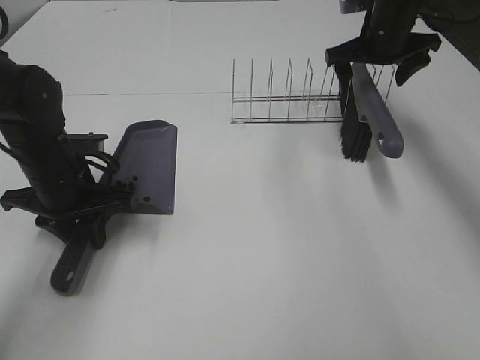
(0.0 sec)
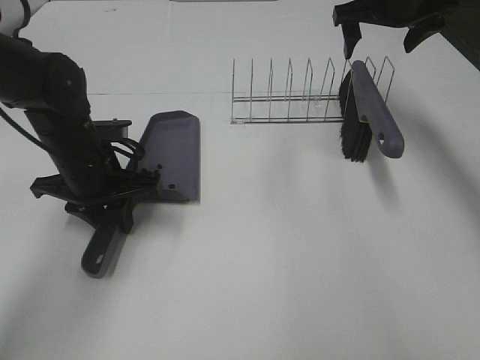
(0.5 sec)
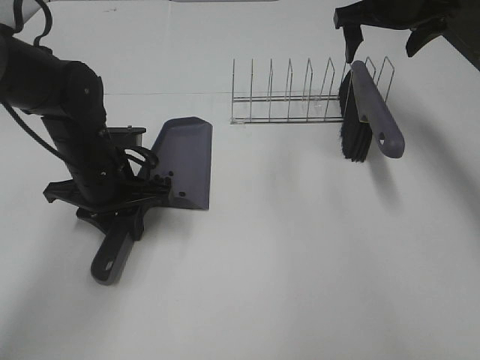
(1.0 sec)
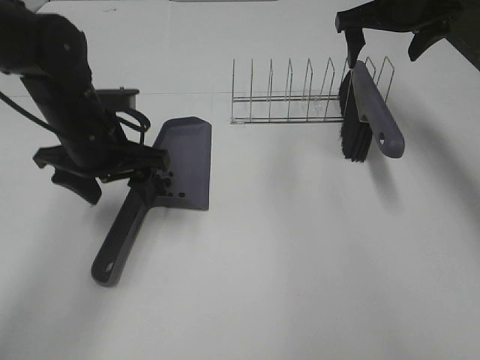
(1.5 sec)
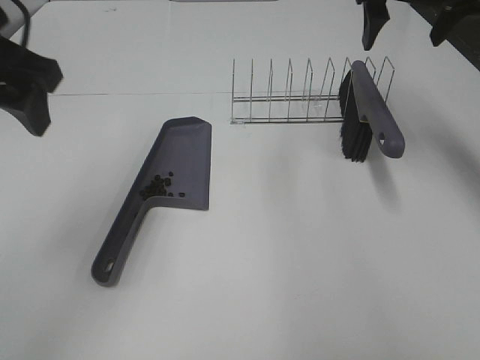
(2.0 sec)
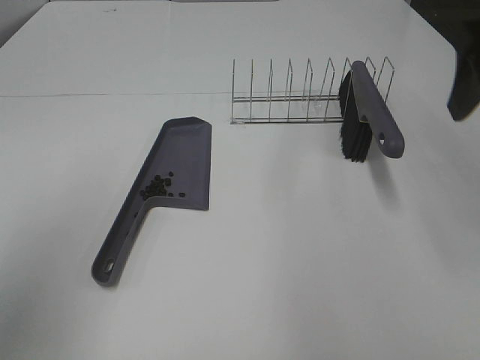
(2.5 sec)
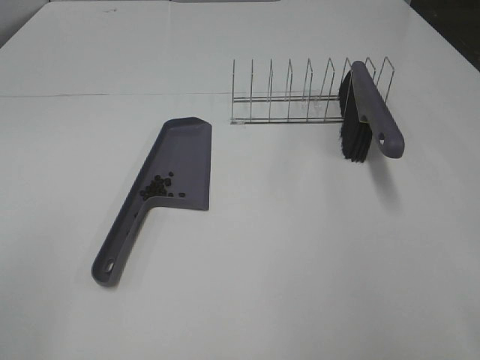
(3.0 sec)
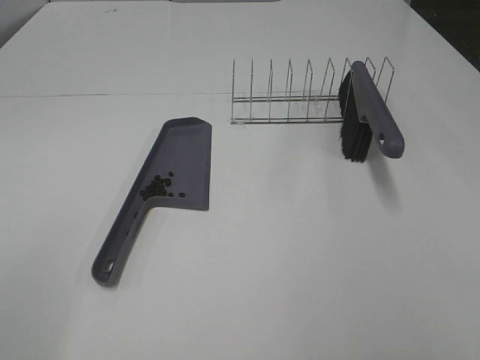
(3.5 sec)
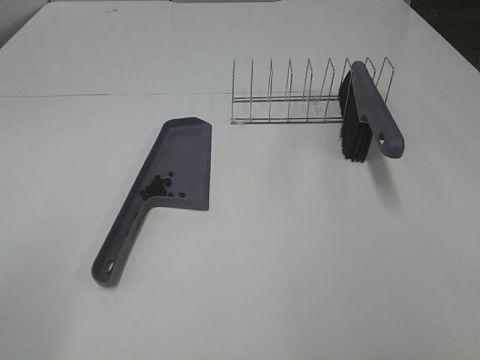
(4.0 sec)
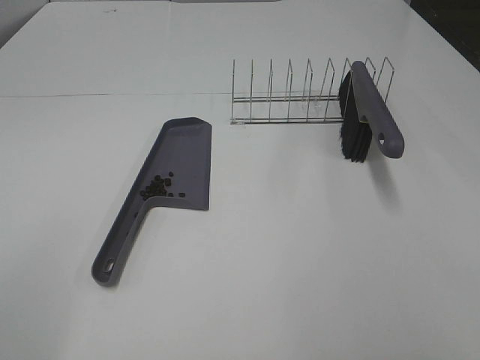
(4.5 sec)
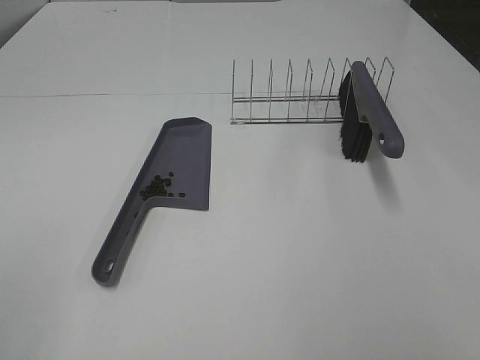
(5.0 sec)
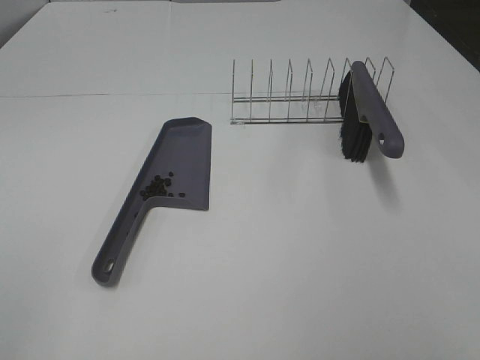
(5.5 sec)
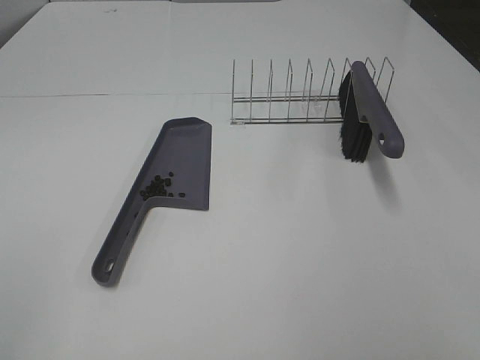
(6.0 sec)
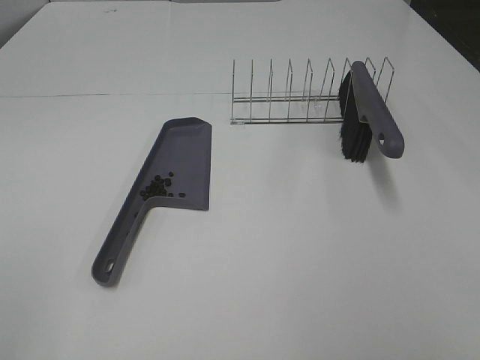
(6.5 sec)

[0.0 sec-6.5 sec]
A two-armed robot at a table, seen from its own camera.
Task of the whole recording: Sweep Coffee Bean.
Step, 0.0 sec to 1.0 sec: Left hand:place the dustpan on the table.
0.0 sec to 2.0 sec: The right gripper moves upward and backward, approximately 15 cm; the left gripper travels upward by roughly 20 cm, and opens up.
2.0 sec to 4.5 sec: The right gripper heads backward, covering roughly 40 cm. Meanwhile the left gripper heads backward and to the left, covering some 25 cm.

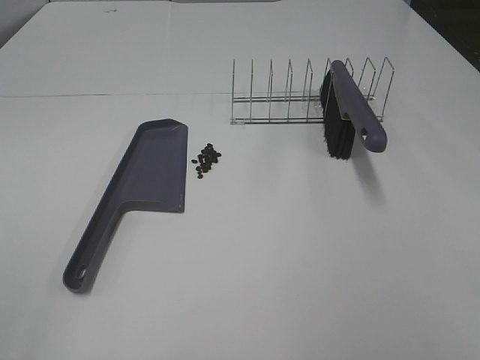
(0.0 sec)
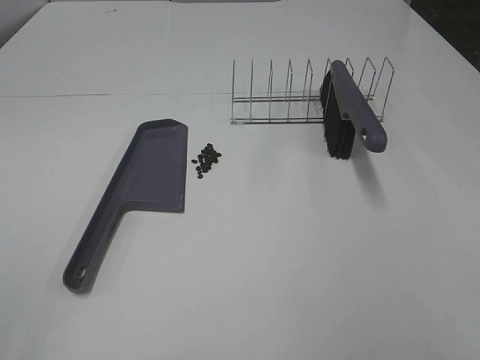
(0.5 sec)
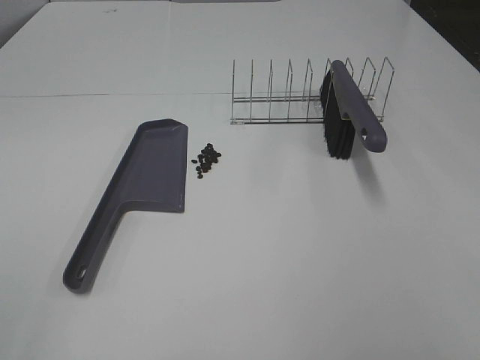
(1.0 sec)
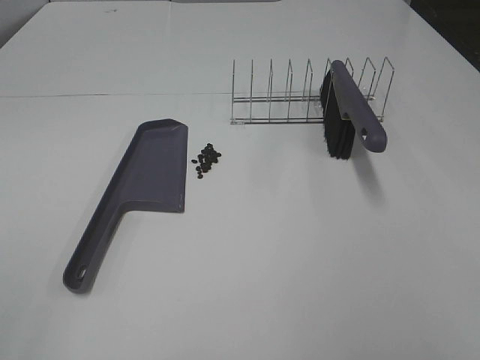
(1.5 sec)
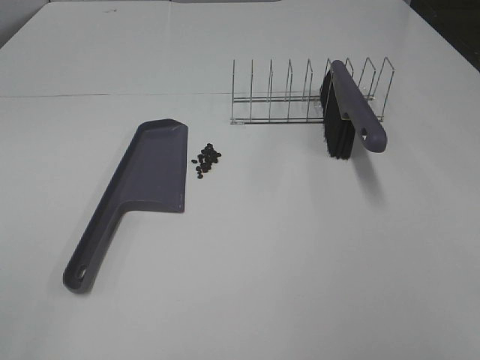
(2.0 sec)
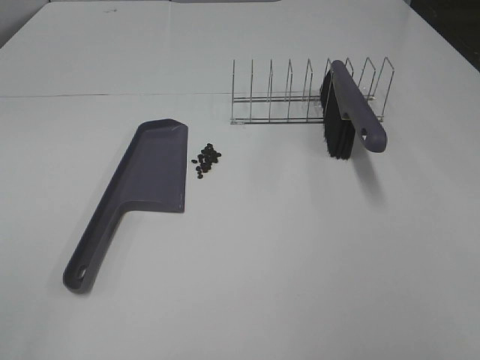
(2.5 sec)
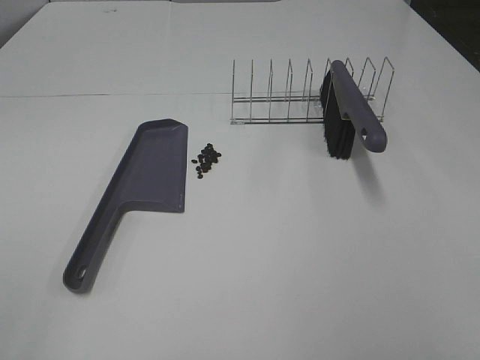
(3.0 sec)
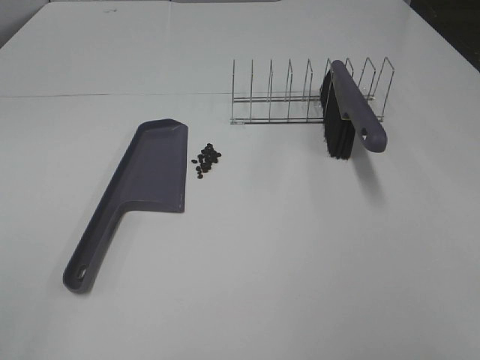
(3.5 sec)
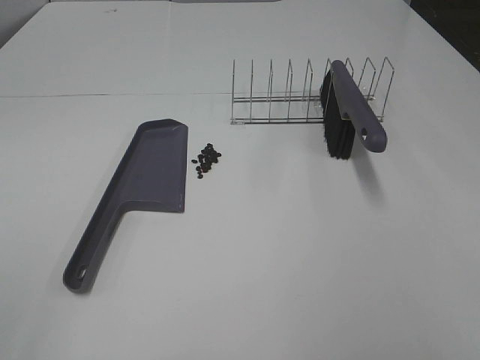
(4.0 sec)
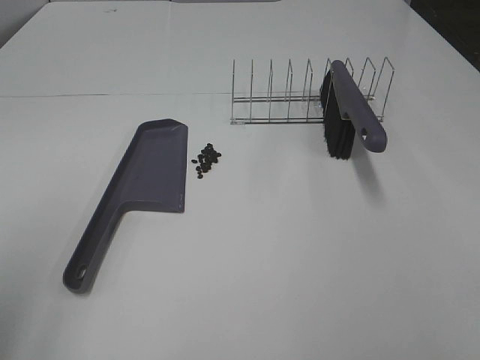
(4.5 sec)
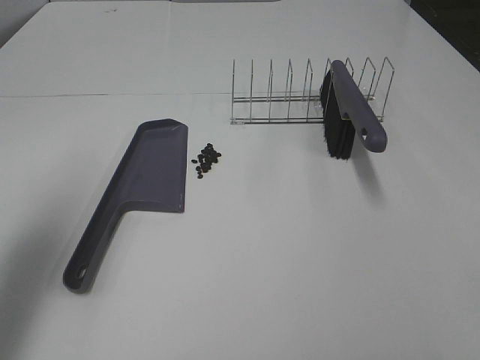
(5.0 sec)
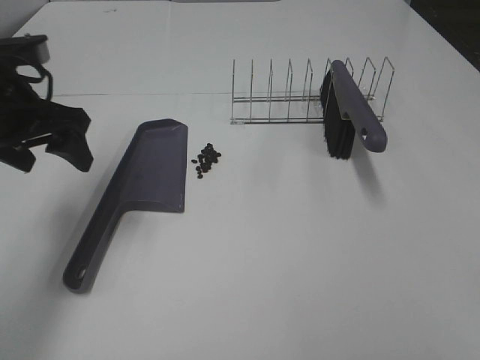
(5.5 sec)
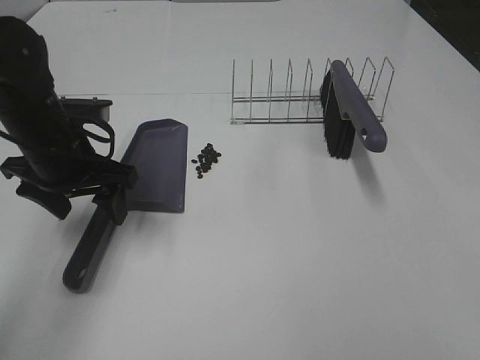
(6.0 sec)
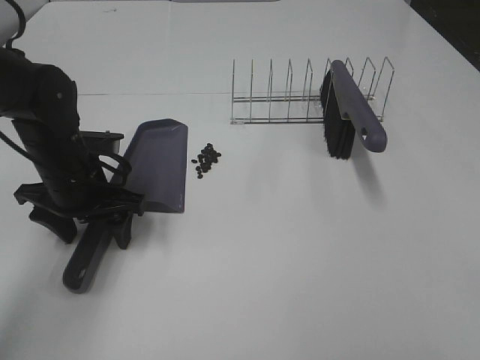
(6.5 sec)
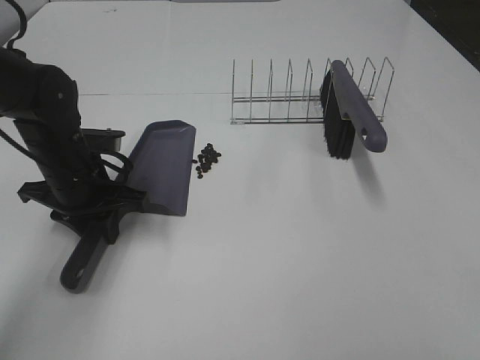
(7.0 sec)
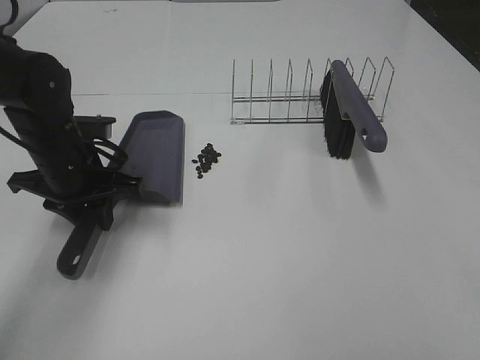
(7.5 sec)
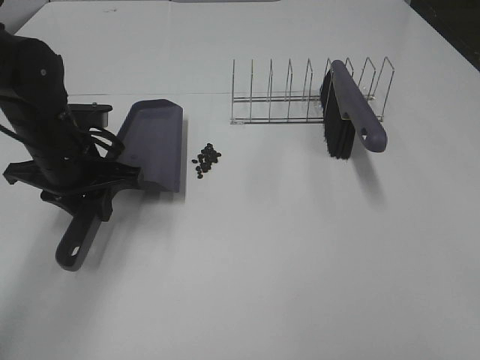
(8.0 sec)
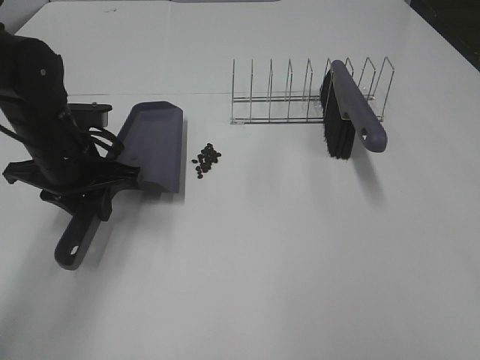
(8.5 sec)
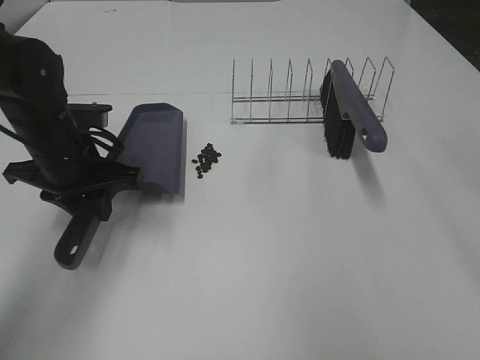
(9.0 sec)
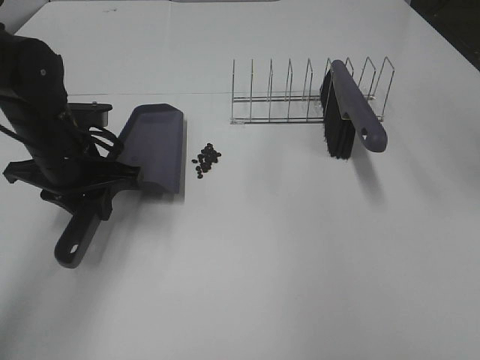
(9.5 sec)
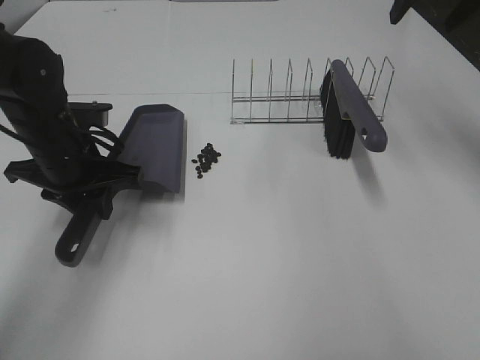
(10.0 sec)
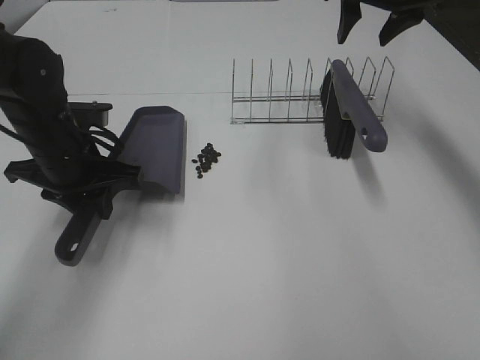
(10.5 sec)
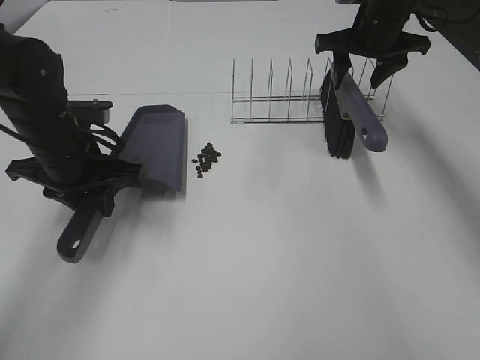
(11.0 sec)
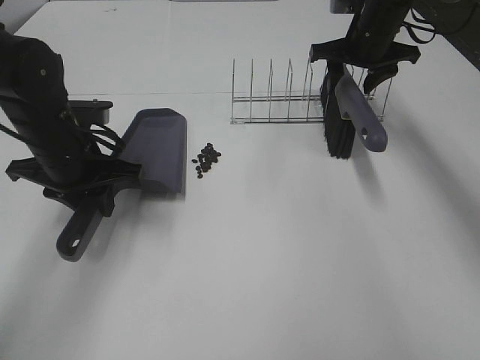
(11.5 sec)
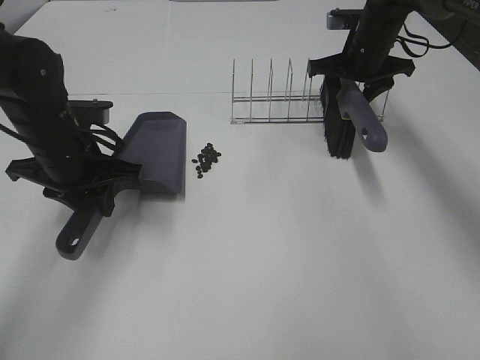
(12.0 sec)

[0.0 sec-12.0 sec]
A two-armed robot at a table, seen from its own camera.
Task of the whole recording: Sweep Coffee Bean.
Step, 0.0 sec to 7.0 sec: Left hand: grab the dustpan.
0.0 sec to 4.0 sec: Both grippers stay put.
4.0 sec to 6.0 sec: The left gripper moves forward and downward, approximately 35 cm.
6.0 sec to 8.0 sec: The left gripper closes its fingers.
8.0 sec to 10.0 sec: The right gripper shifts roughly 40 cm forward.
10.0 sec to 12.0 sec: The right gripper goes roughly 20 cm downward and forward.

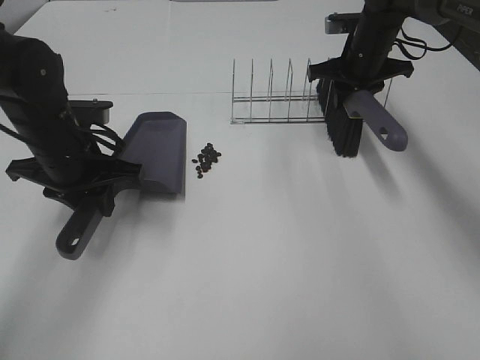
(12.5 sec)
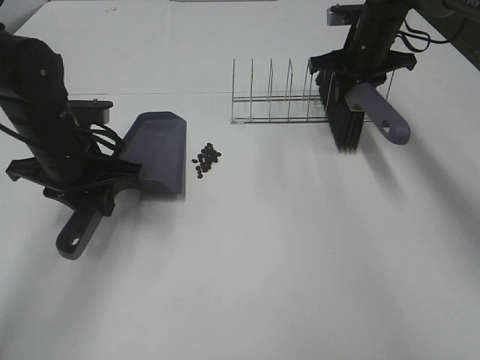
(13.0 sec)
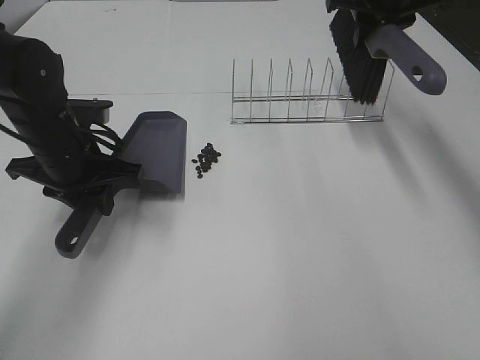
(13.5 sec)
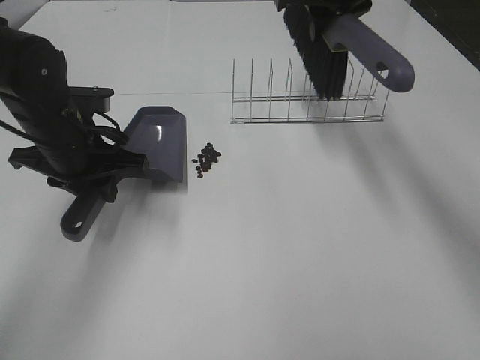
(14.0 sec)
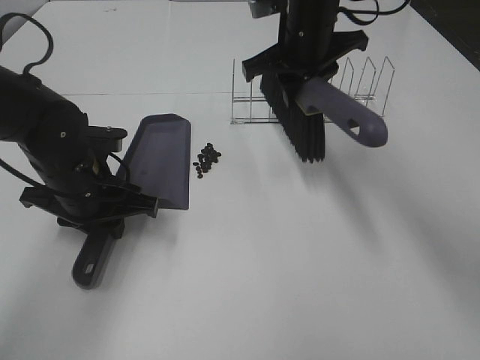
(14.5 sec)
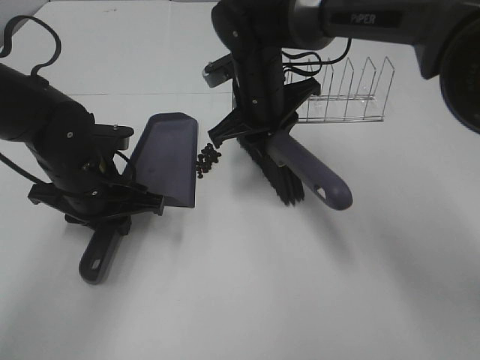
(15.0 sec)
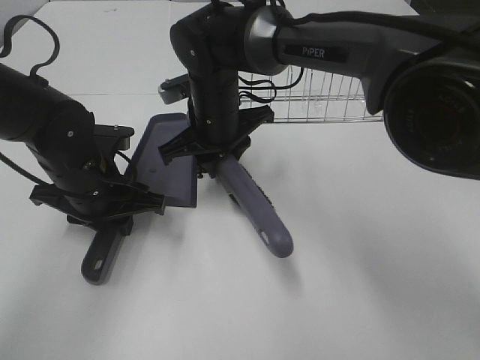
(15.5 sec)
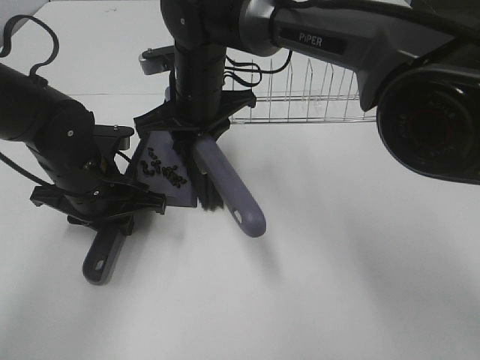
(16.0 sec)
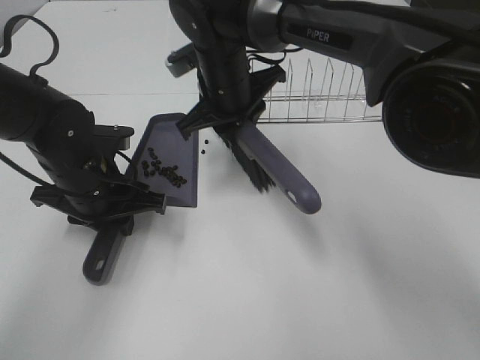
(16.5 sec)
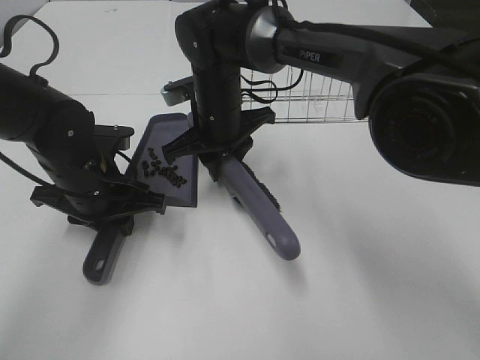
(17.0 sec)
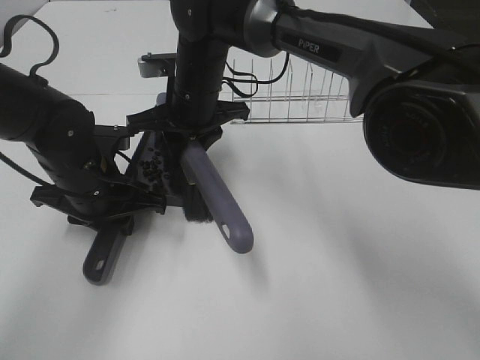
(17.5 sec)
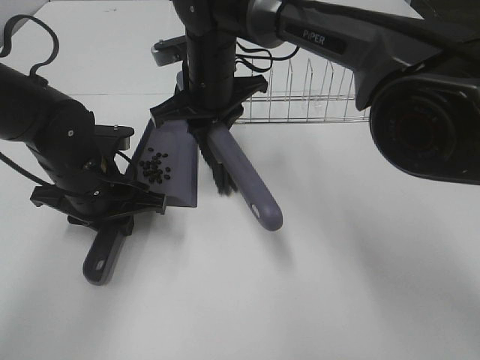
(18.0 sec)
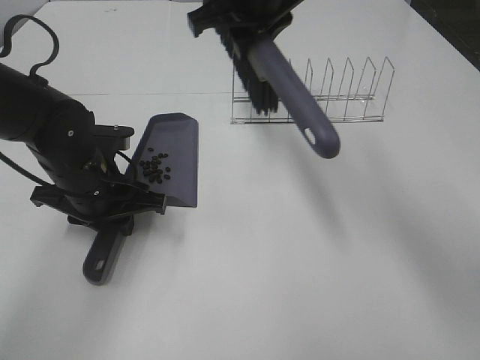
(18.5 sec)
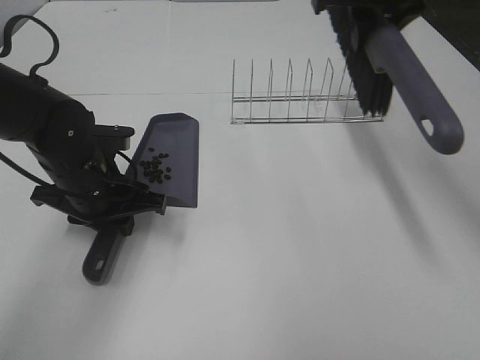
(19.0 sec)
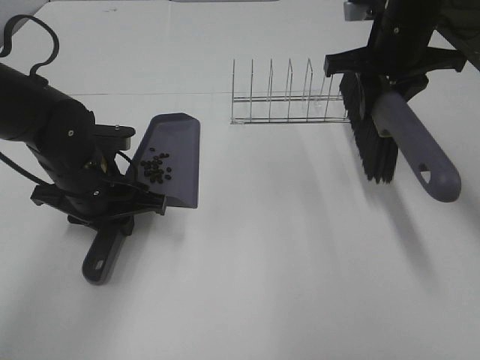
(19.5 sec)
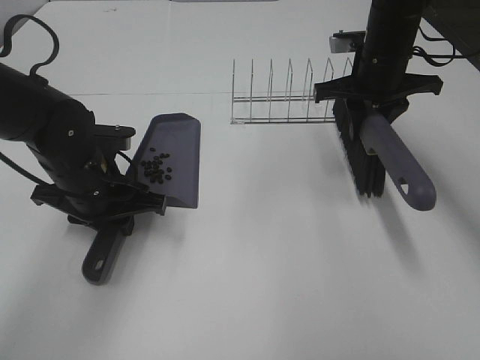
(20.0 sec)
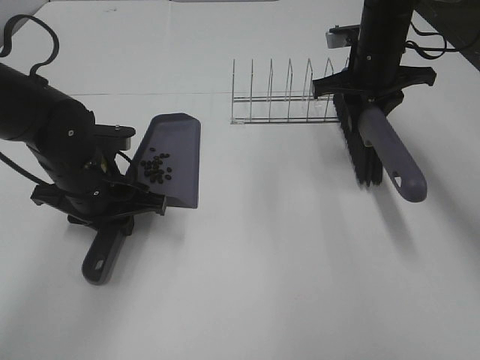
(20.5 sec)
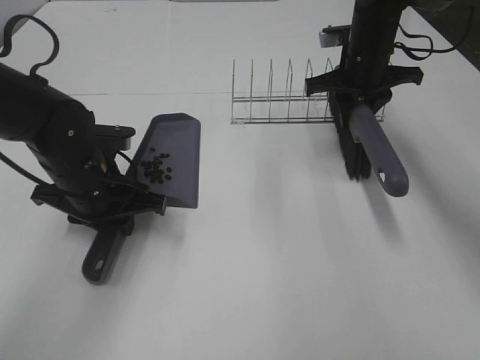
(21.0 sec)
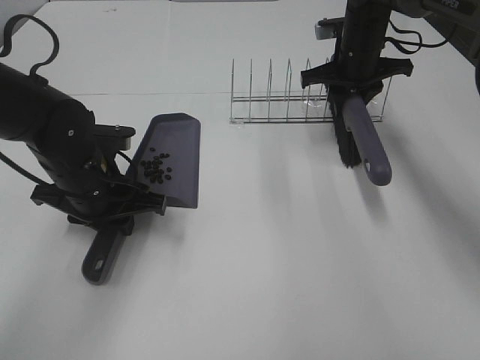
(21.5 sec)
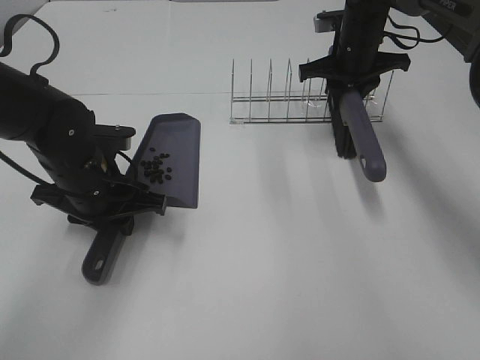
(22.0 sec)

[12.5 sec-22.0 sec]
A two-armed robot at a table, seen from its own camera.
Task of the whole recording: Sweep Coffee Bean.
Step, 13.0 sec to 17.5 sec: Right hand:sweep the coffee beans into the dustpan.
12.5 sec to 14.5 sec: The right gripper travels to the left, backward and upward by about 15 cm.
14.5 sec to 16.5 sec: The right gripper goes about 10 cm to the left and downward.
18.0 sec to 20.0 sec: The right gripper heads to the right, covering some 20 cm.
20.0 sec to 22.0 sec: The right gripper is displaced forward by roughly 5 cm.
